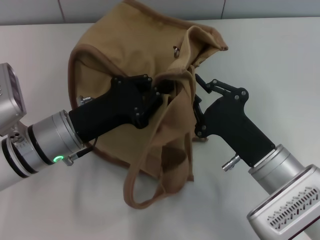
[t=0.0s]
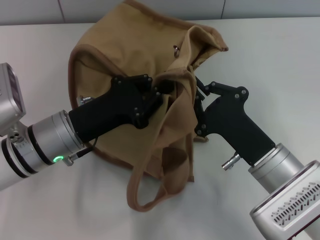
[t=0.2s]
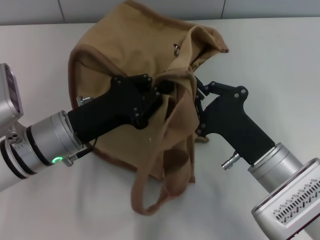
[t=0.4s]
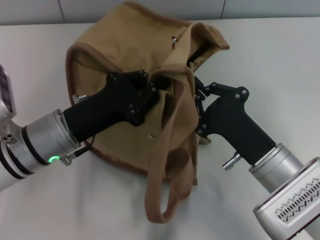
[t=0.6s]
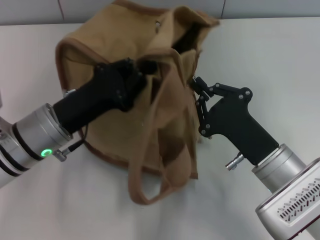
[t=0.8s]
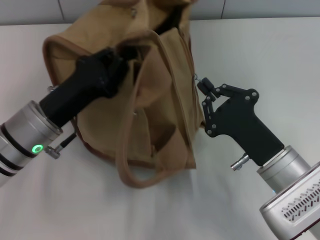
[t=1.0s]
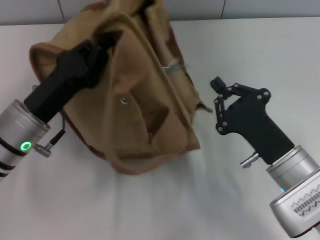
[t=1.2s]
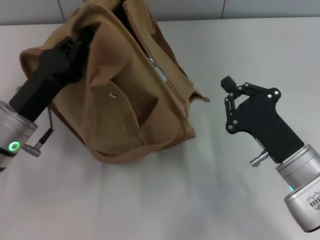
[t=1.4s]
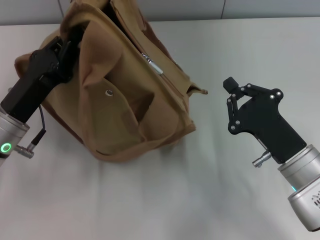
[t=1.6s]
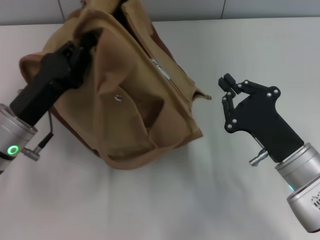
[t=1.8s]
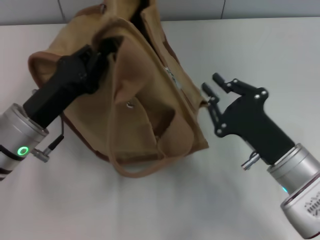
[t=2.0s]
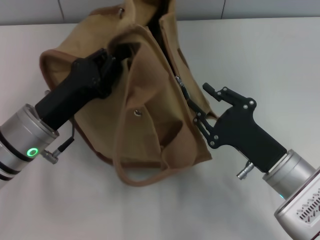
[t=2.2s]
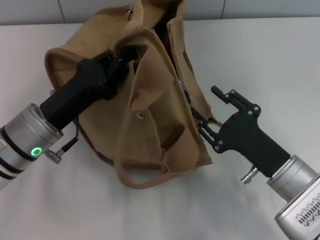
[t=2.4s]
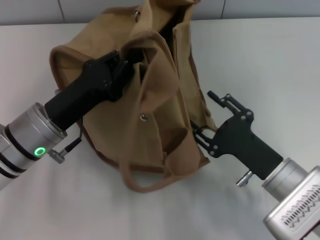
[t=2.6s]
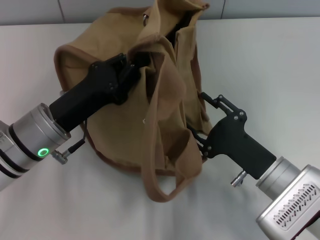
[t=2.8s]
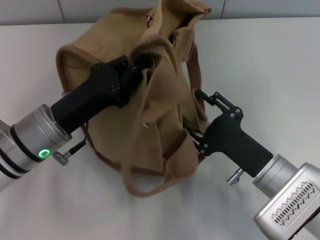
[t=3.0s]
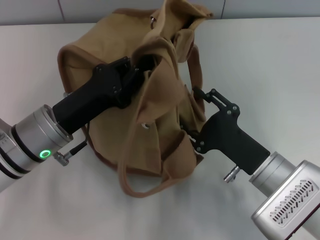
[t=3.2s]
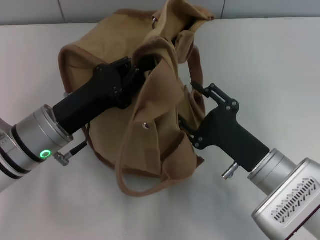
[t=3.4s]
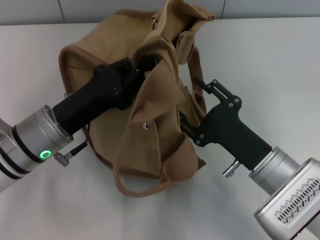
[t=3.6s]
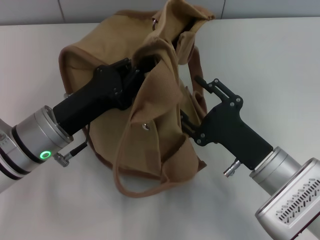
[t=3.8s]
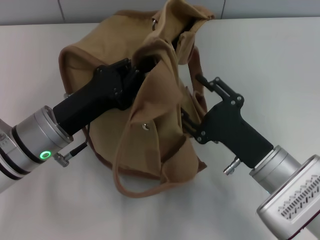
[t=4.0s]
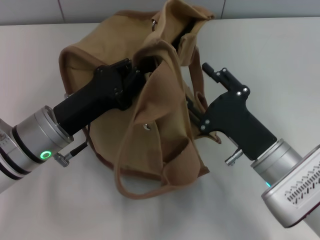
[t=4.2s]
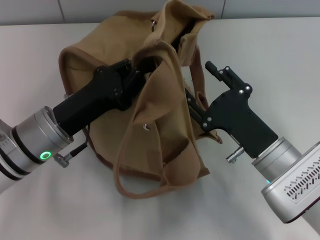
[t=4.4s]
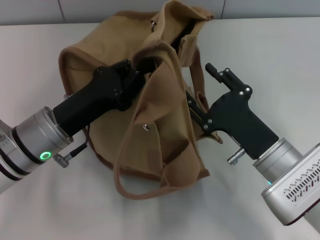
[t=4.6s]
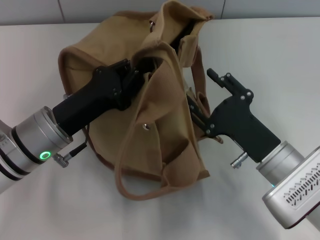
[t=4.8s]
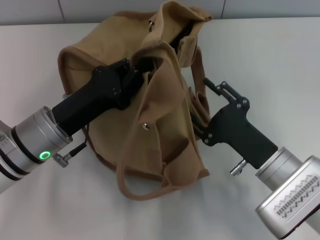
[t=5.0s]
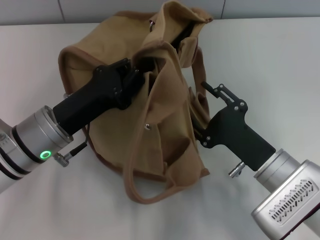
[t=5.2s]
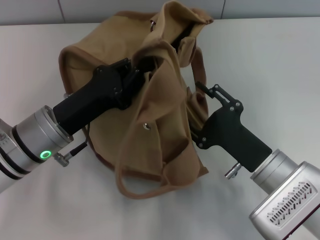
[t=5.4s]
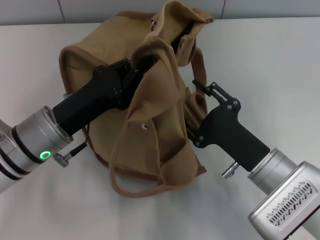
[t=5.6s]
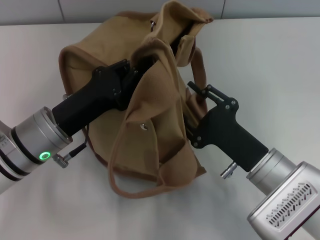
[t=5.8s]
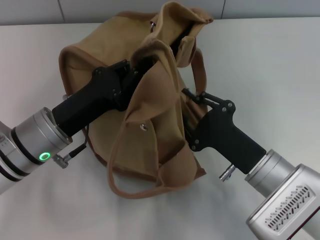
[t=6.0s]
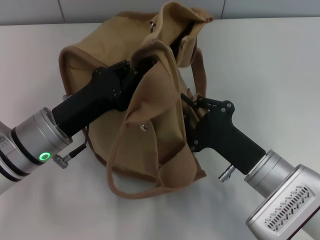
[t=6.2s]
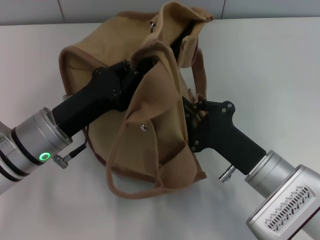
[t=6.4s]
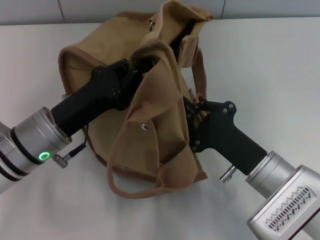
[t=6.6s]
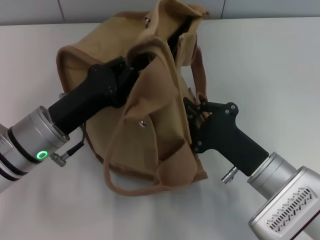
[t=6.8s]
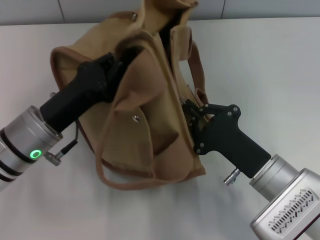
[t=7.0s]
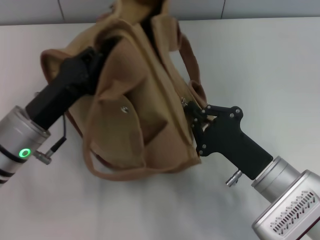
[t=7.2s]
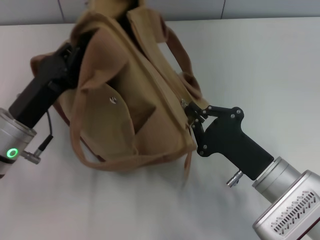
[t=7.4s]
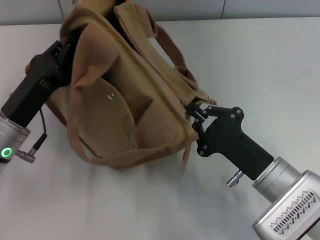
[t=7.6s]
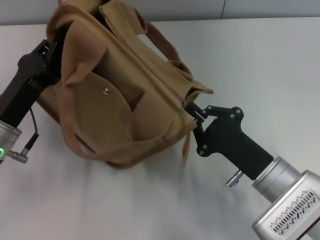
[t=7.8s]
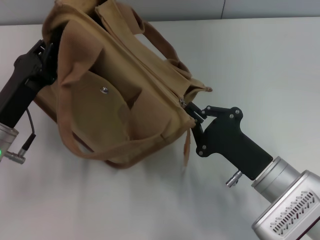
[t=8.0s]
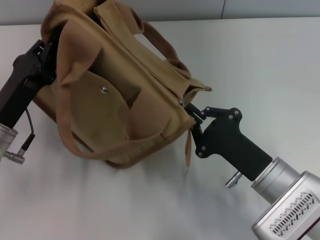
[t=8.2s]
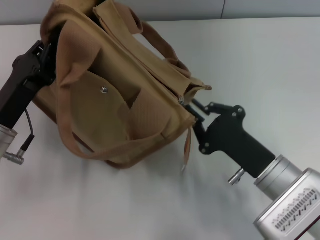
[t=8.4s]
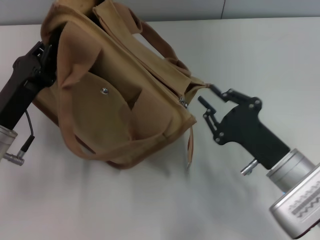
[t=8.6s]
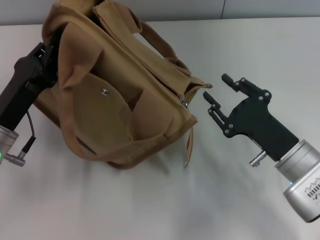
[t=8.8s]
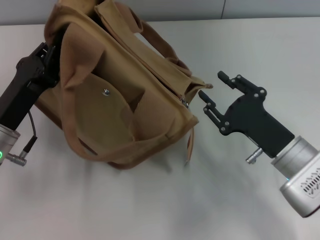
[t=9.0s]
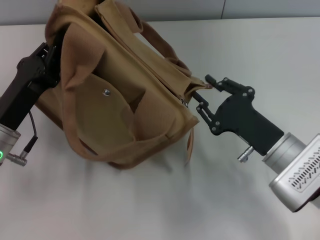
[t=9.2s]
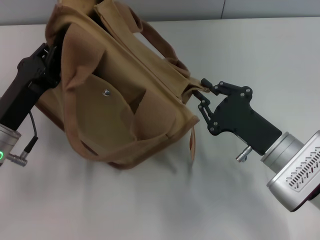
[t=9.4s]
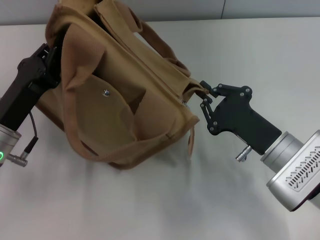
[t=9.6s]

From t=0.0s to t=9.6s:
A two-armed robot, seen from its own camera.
Step, from t=0.0s to t=8.4s: Pull open the zipper with your right hand.
From t=0.0s to t=1.6s: The left gripper shifts some 5 cm to the left; the right gripper closes up.
From t=1.6s to t=3.2s: The right gripper opens its fingers.
From t=3.2s to t=4.8s: The grippers make only small movements.
From t=4.8s to t=6.4s: The right gripper closes.
From t=6.4s to t=8.0s: The left gripper travels to the left by approximately 5 cm.
From t=8.0s to t=9.6s: The grippers move only a little.

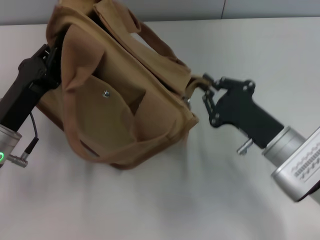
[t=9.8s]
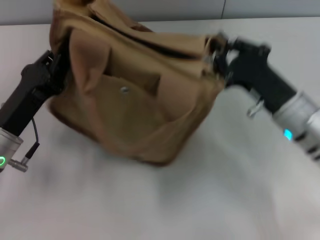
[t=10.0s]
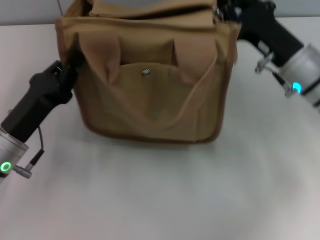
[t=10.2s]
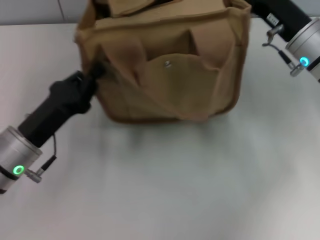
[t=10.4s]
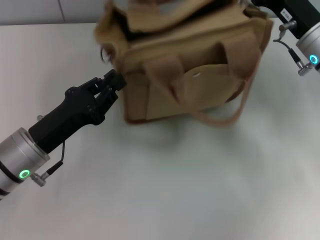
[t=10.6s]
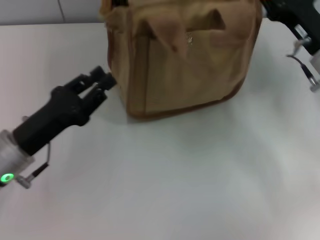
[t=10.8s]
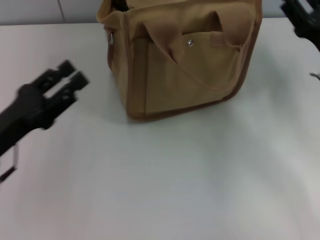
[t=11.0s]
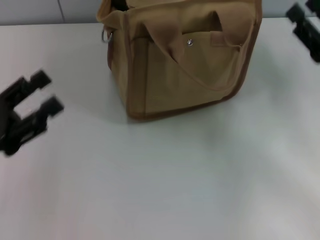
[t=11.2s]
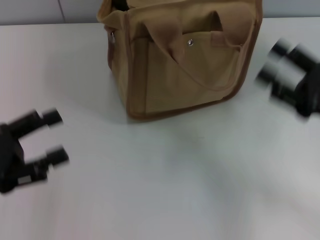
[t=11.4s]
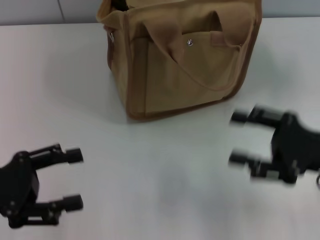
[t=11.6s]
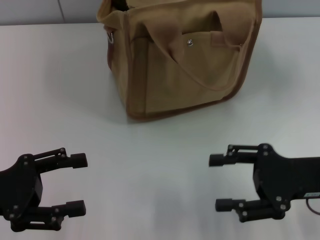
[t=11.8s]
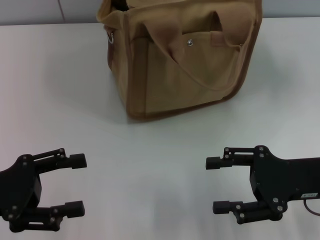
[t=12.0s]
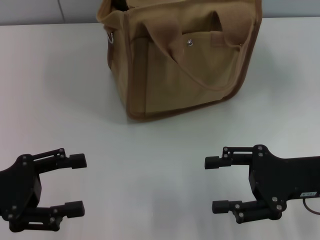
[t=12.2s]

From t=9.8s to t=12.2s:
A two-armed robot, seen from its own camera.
From t=9.8s to t=11.0s: The right gripper goes roughly 10 cm to the right, upward and forward.
From t=11.0s to t=12.2s: The left gripper opens, while the right gripper heads backward, covering roughly 5 cm, and opens.
